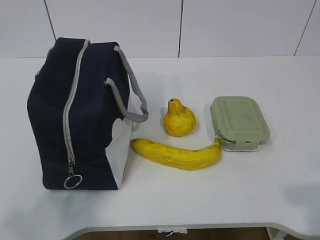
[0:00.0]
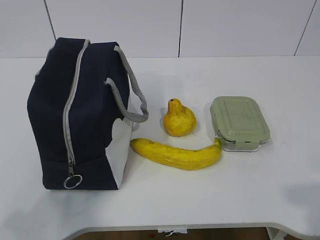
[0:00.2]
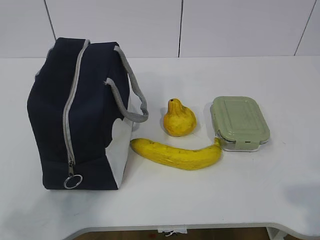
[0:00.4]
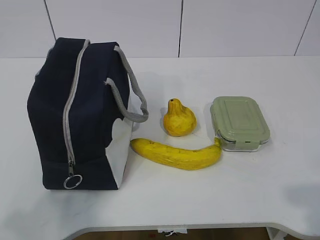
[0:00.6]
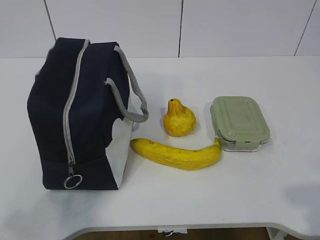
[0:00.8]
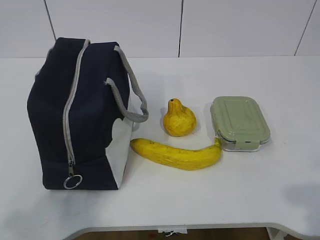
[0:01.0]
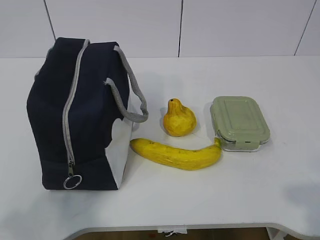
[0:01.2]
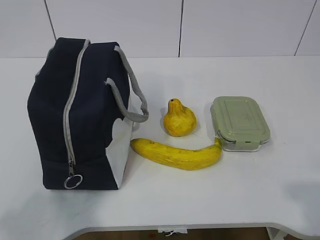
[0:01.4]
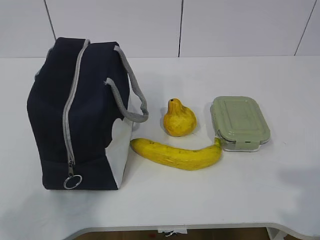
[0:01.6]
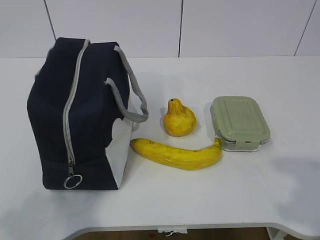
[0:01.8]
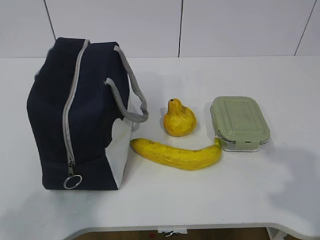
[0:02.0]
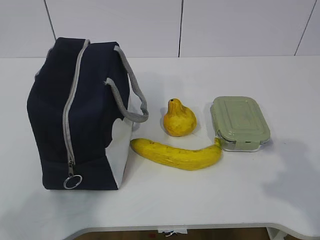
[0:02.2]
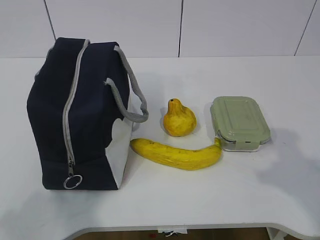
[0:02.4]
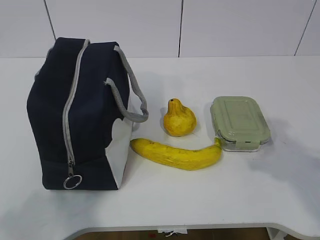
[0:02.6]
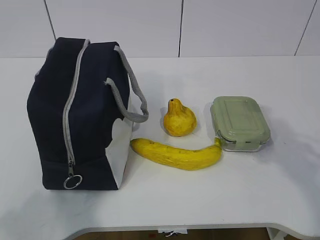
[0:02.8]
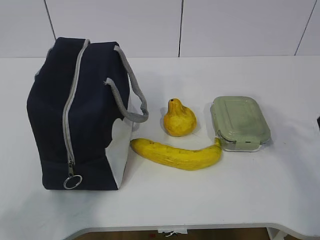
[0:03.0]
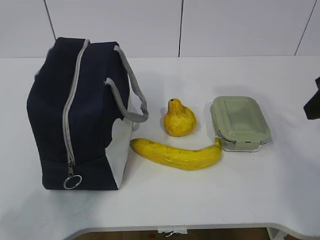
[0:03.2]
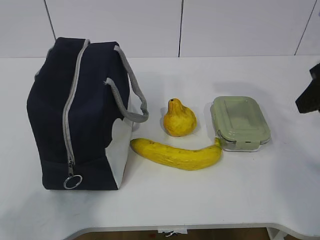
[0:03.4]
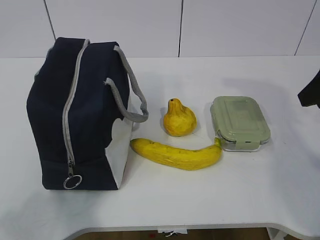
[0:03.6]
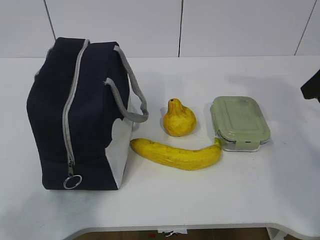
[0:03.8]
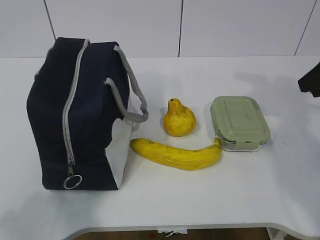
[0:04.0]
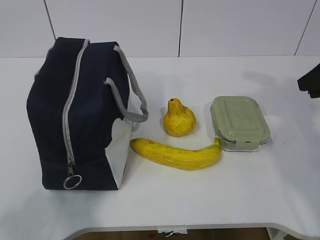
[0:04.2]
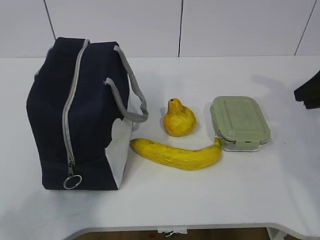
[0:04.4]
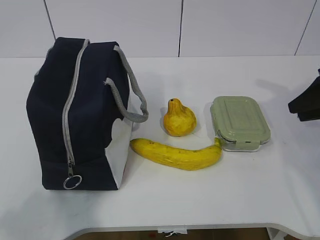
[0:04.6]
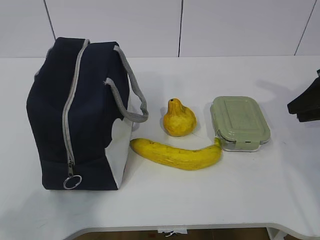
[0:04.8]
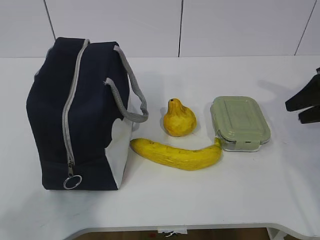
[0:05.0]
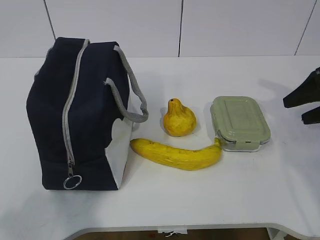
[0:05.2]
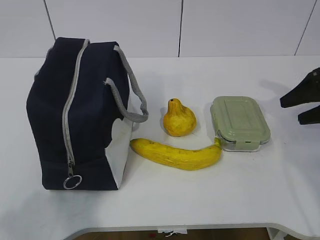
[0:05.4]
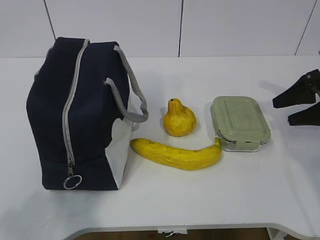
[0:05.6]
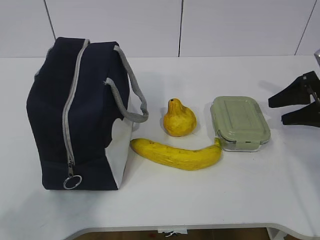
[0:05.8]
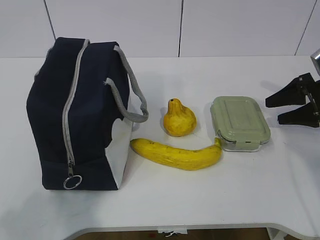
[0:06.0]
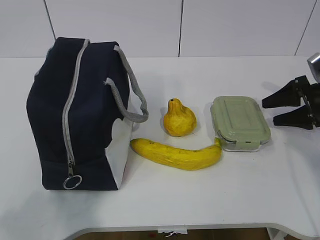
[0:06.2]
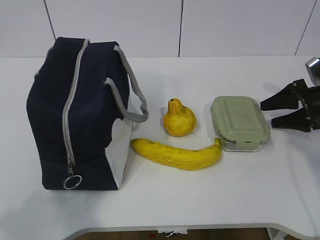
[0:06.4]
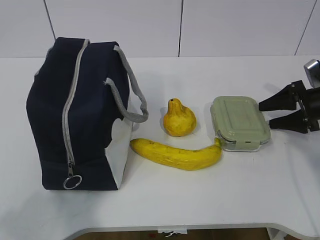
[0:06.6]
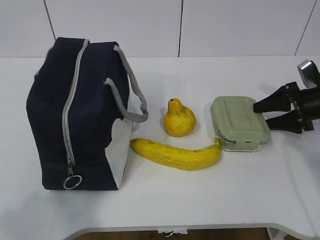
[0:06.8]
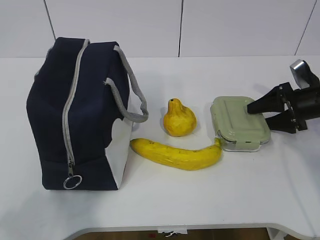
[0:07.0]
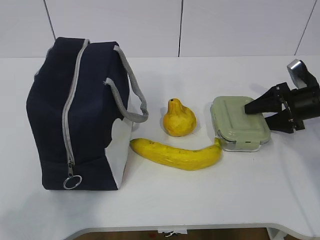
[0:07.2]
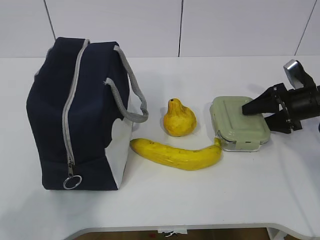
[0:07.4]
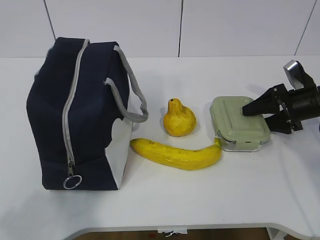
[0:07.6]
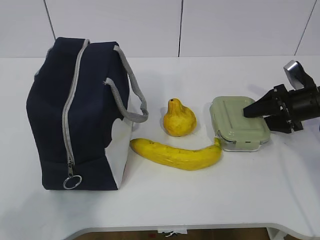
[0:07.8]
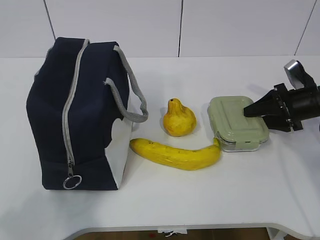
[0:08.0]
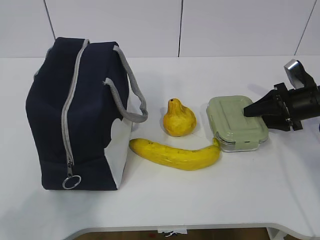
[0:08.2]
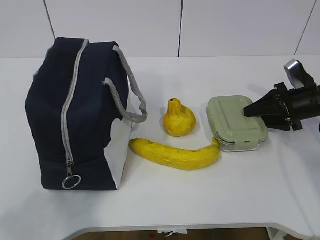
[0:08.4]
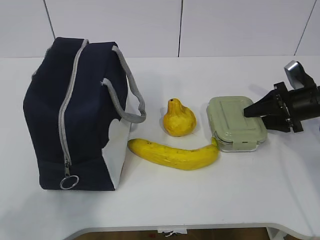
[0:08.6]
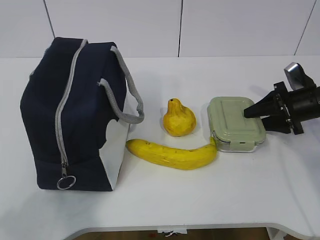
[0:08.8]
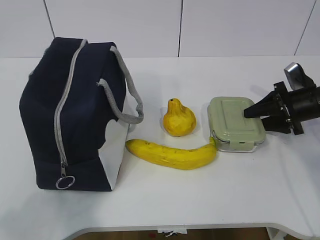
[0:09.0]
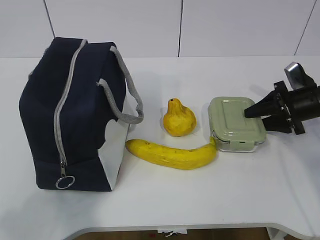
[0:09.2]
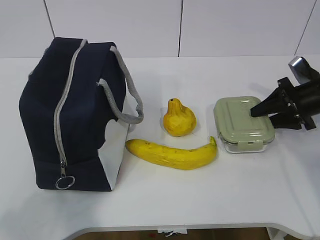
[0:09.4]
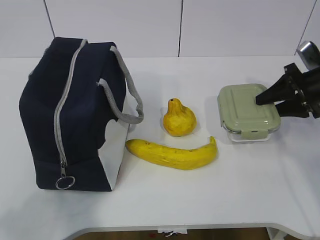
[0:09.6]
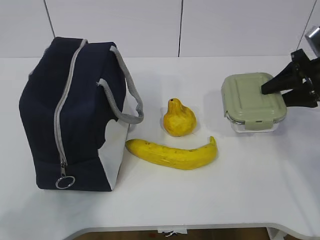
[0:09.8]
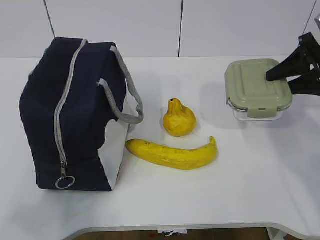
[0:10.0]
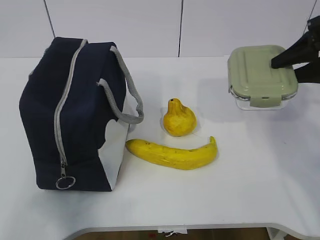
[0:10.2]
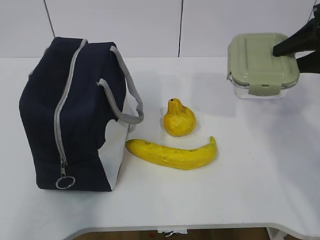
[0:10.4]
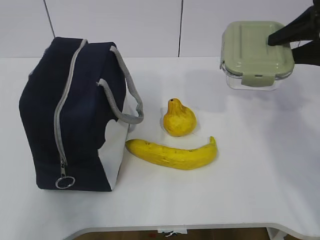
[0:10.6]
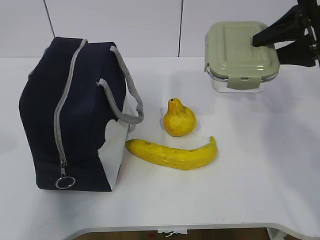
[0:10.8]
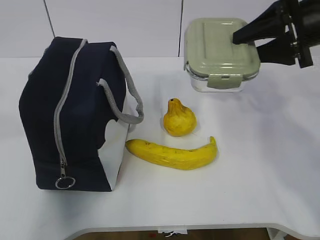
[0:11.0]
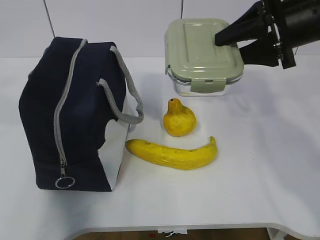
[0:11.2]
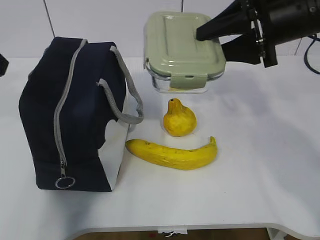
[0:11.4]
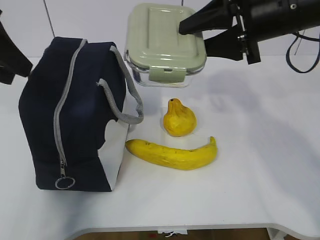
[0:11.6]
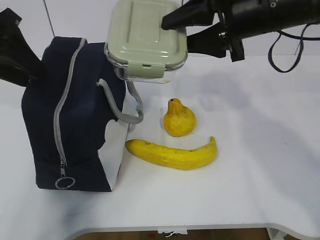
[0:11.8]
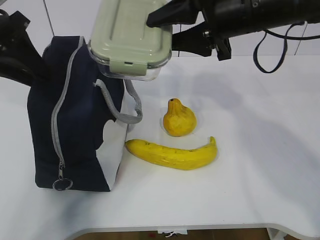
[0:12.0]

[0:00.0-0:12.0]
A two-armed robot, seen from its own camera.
Step, 0:00.0 to 0:09.0: Grasp the box with the right gripper.
0:01.6 to 0:03.0: The right gripper travels forward by some 20 cm.
0:03.0 to 0:04.4: The right gripper is displaced forward, to the right and downward by about 15 cm.
0:04.4 to 0:06.0: The right gripper goes roughly 10 cm downward, and opens its fingers.
0:06.0 to 0:07.6: The right gripper moves approximately 5 cm.
0:07.6 to 0:09.0: The grippers move only a little.
0:09.0 to 0:10.4: The left gripper goes approximately 5 cm upward; the right gripper shifts some 15 cm upward.
0:10.4 to 0:12.0: The right gripper moves to the left, about 20 cm. Meanwhile the left gripper moves forward, roughly 30 cm.

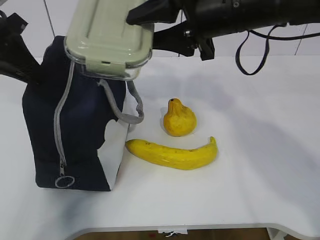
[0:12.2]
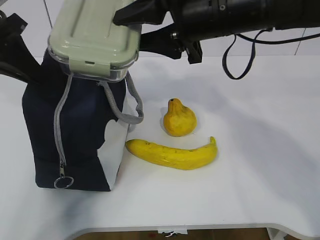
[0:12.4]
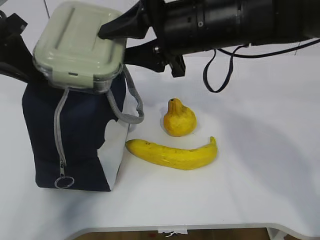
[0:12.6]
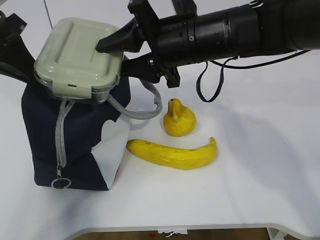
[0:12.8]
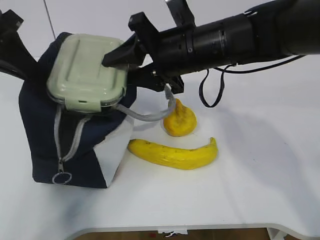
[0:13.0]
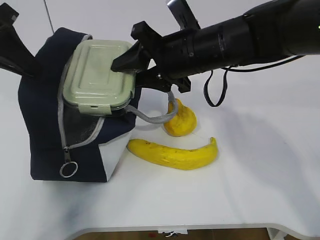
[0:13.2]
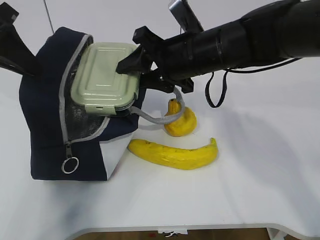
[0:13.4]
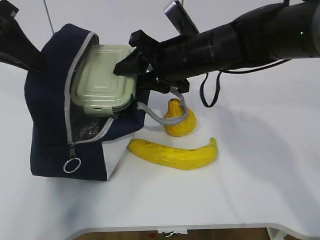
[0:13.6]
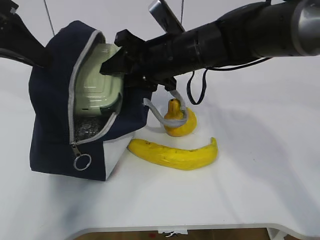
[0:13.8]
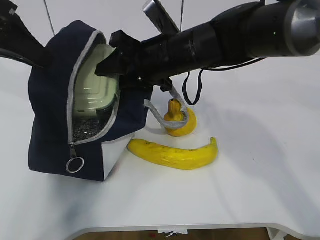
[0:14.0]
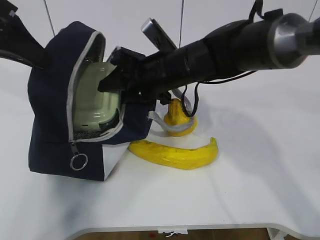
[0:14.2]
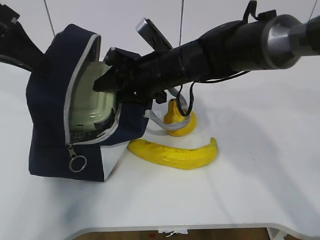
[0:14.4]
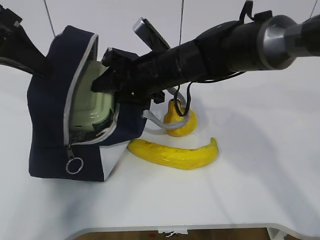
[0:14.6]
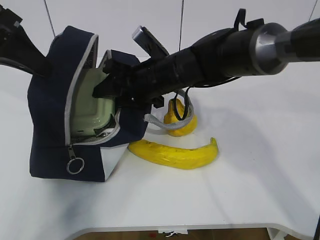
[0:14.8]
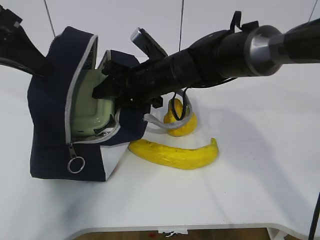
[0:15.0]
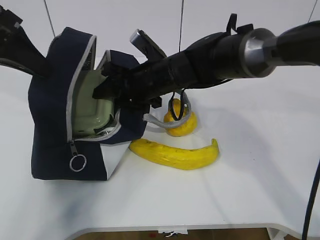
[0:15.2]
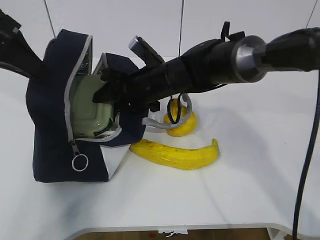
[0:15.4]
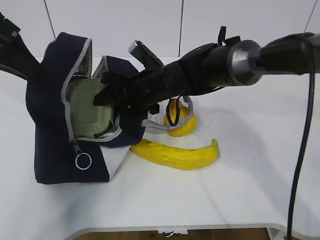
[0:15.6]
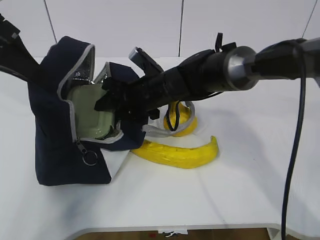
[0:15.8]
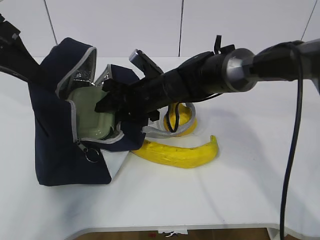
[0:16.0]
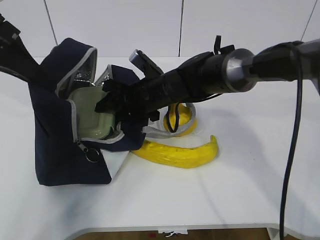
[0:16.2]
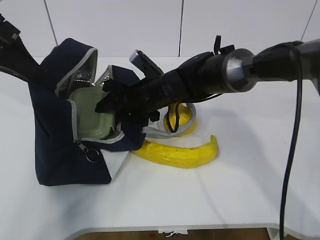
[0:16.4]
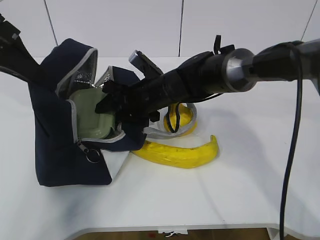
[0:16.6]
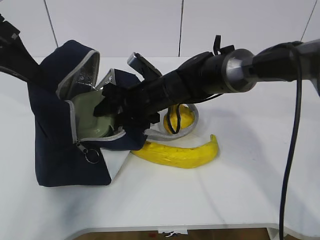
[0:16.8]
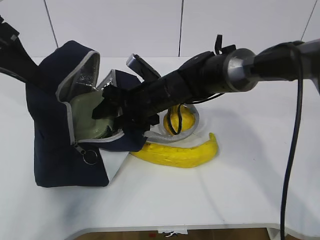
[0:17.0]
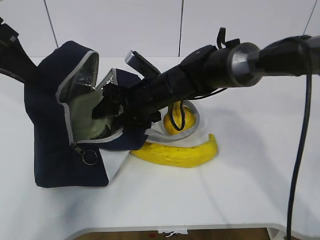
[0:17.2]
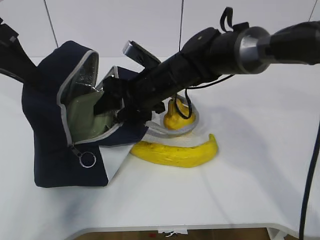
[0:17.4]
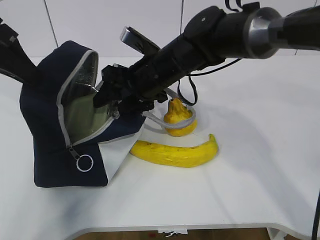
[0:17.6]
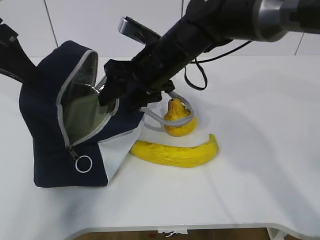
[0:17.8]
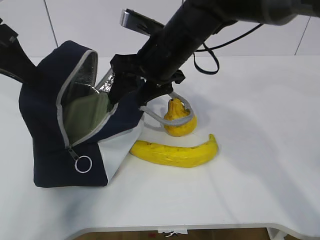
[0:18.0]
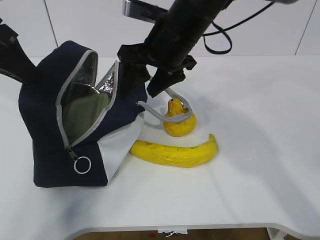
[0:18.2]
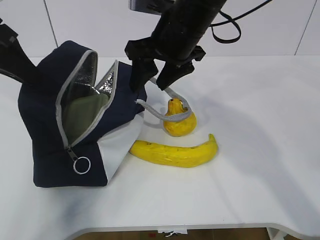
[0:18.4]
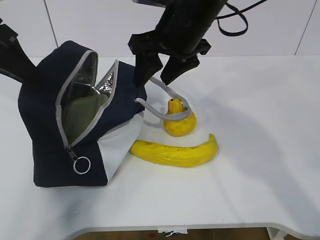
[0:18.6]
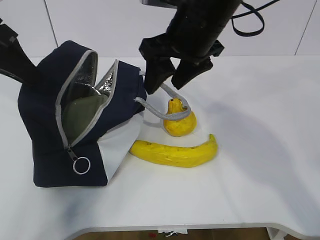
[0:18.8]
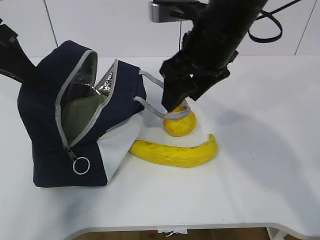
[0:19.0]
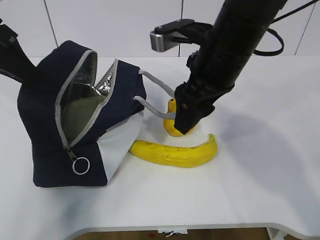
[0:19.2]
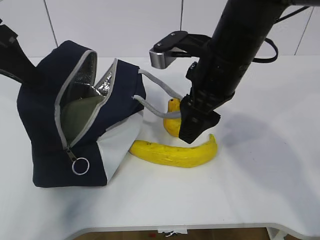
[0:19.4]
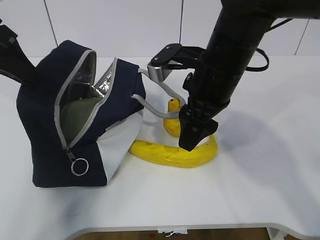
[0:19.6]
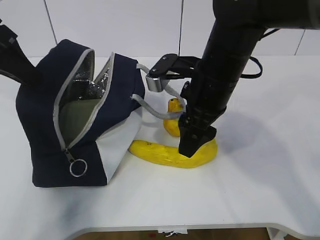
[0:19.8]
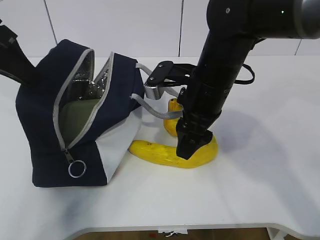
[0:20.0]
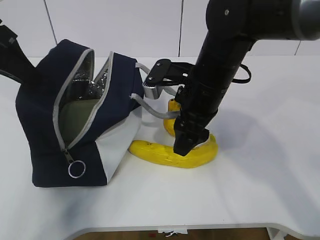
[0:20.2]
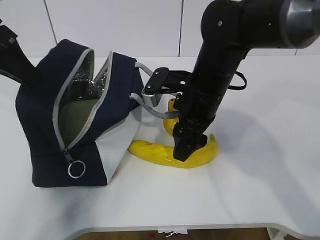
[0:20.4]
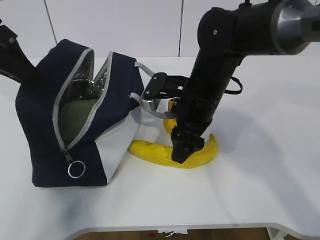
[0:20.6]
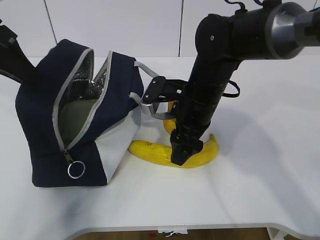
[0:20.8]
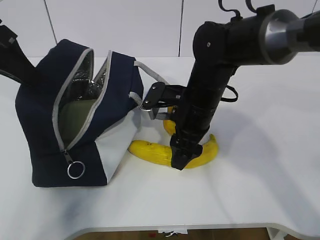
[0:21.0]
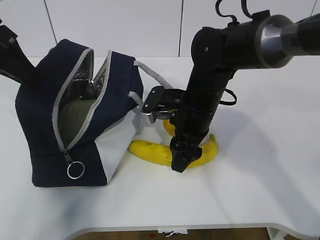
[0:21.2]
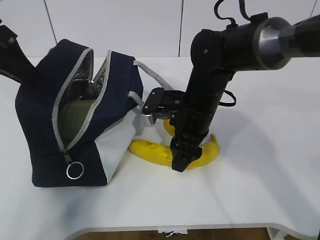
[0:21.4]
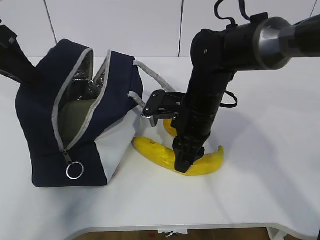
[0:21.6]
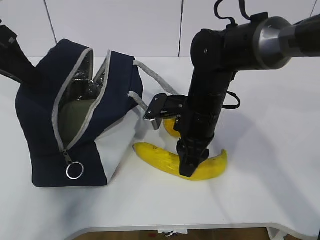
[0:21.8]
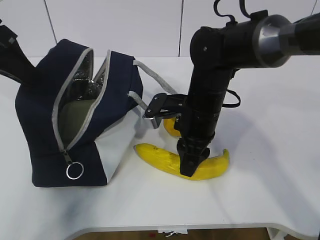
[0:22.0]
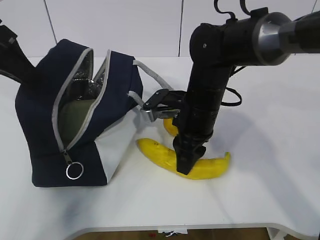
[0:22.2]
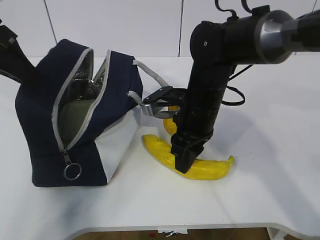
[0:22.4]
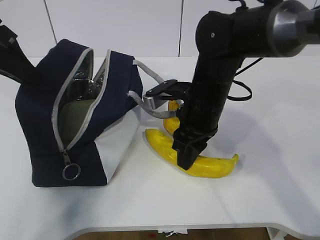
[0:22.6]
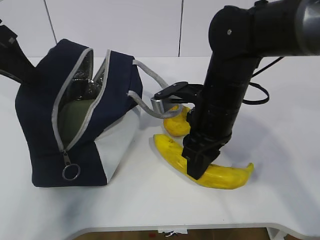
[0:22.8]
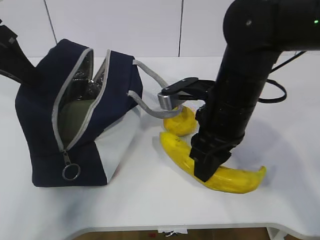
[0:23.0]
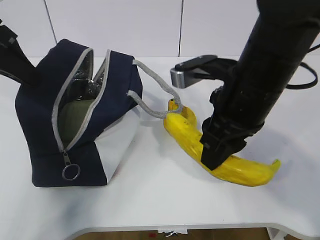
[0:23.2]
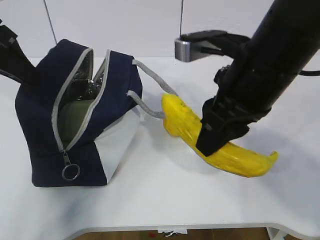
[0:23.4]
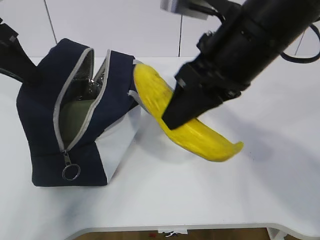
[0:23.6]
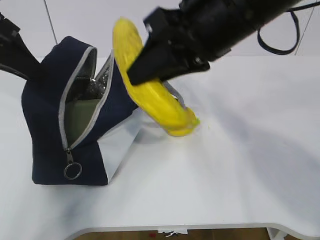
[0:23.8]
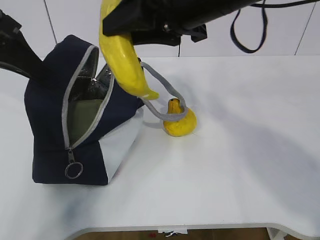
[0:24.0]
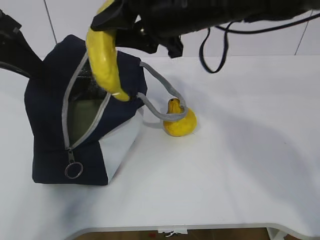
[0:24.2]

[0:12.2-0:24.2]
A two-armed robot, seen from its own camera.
Step, 0:12.2 to 0:17.8: Place the box into the package with the right gripper.
Step, 0:18.0 to 0:21.6: Grasp the banana with the right gripper.
0:12.2 to 0:13.8: The right gripper shifts roughly 10 cm downward and to the left.
0:13.8 to 0:15.2: The right gripper is displaced downward by about 5 cm.
0:16.6 to 0:18.2: The right gripper travels upward by some 15 cm.
0:18.2 to 0:19.8: The right gripper ends up roughly 10 cm from where it was.
0:19.8 to 0:21.2: The right gripper goes some 5 cm downward.
0:21.2 to 0:22.6: The right gripper closes.
0:22.6 to 0:24.2: The right gripper heads upward, covering about 15 cm.
